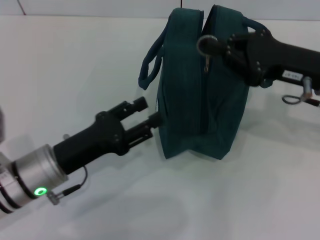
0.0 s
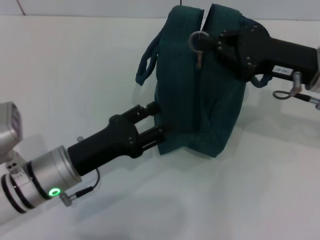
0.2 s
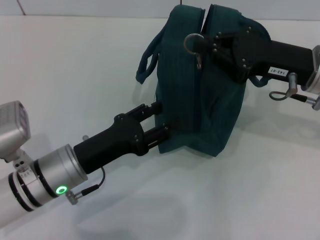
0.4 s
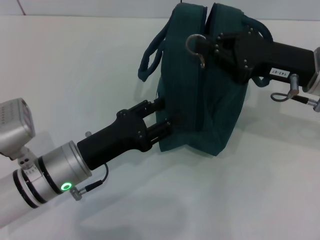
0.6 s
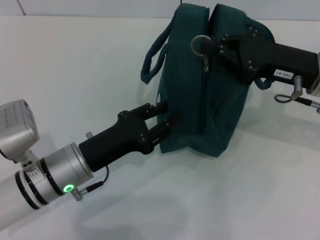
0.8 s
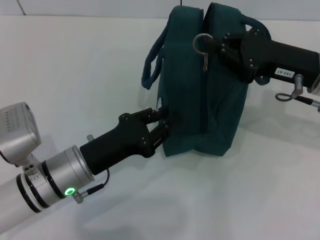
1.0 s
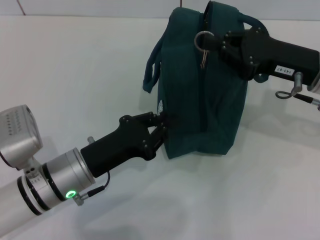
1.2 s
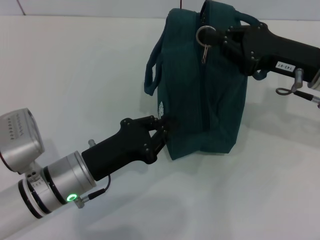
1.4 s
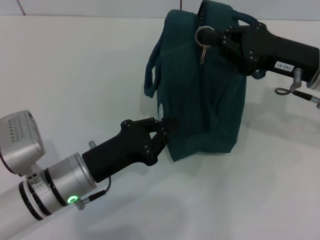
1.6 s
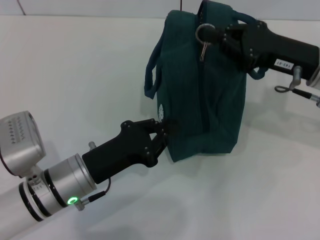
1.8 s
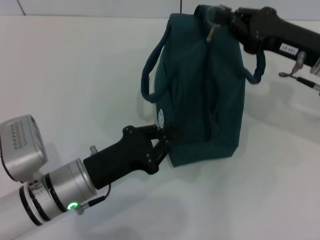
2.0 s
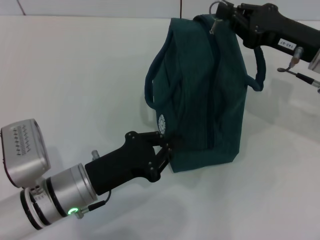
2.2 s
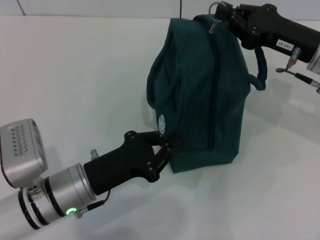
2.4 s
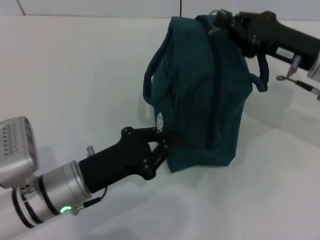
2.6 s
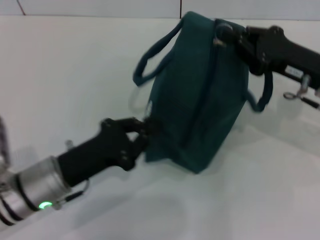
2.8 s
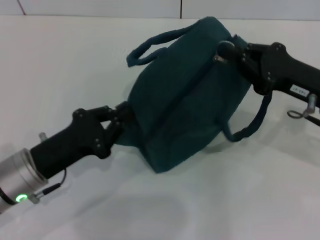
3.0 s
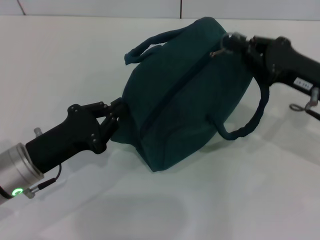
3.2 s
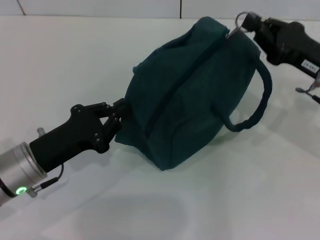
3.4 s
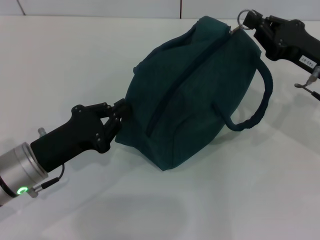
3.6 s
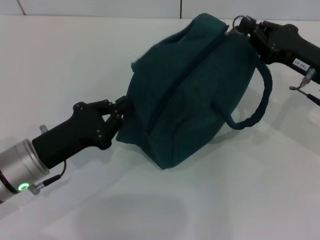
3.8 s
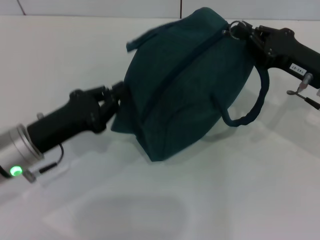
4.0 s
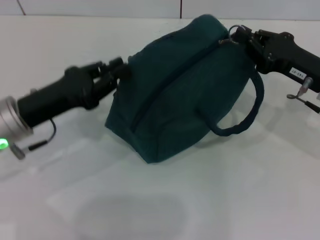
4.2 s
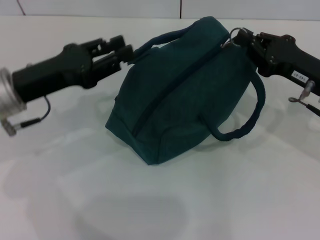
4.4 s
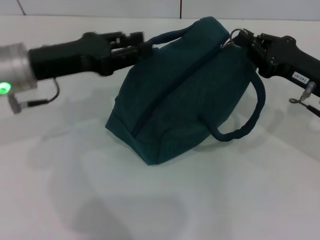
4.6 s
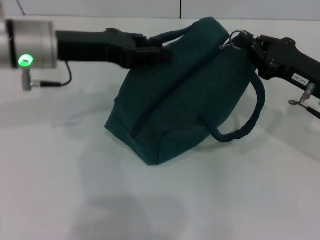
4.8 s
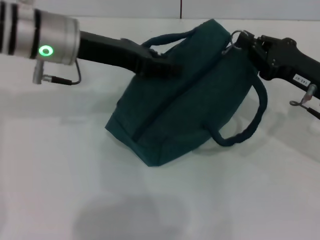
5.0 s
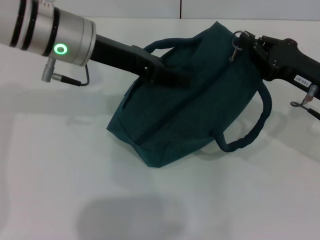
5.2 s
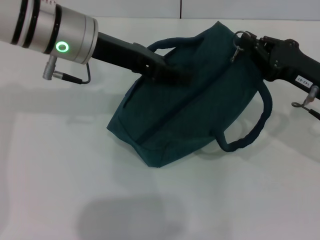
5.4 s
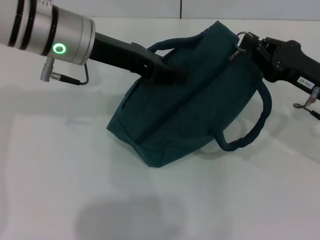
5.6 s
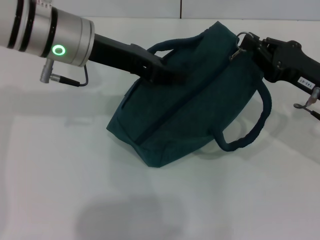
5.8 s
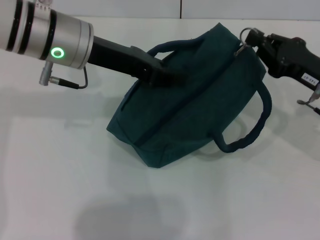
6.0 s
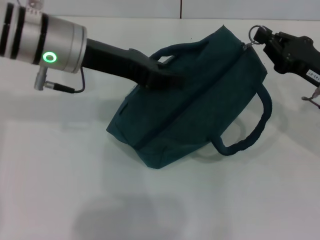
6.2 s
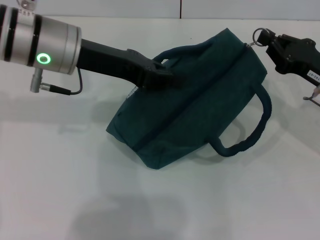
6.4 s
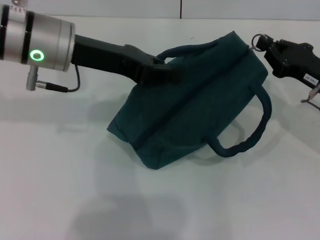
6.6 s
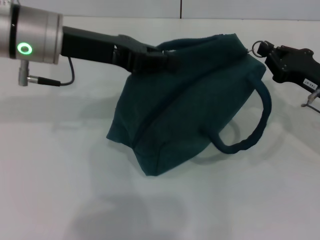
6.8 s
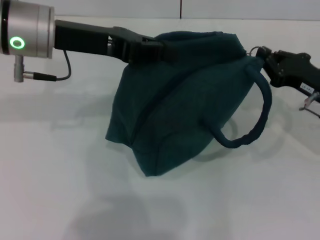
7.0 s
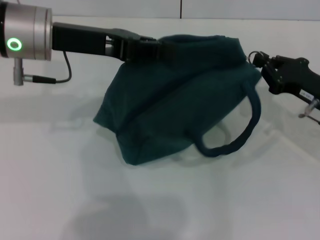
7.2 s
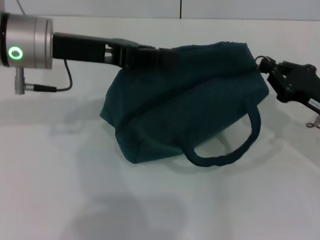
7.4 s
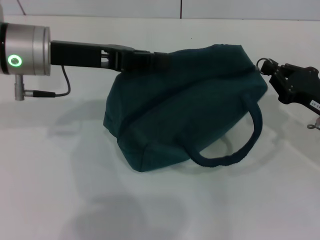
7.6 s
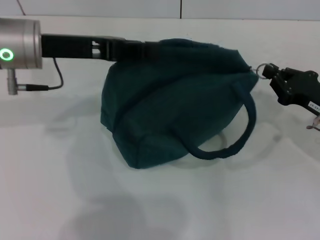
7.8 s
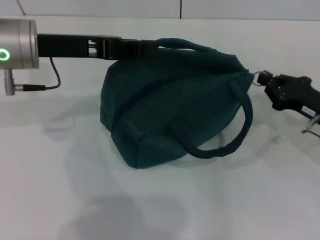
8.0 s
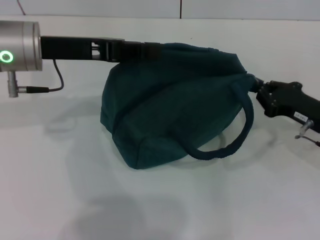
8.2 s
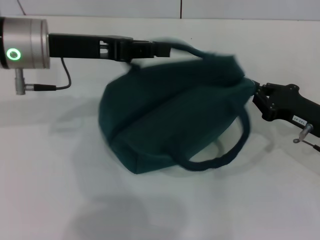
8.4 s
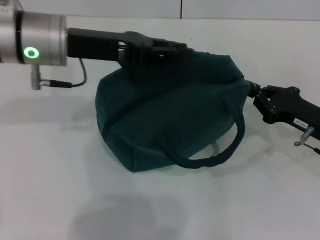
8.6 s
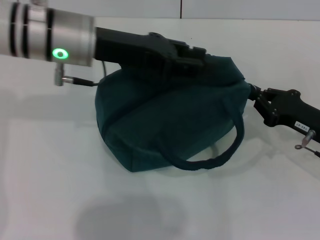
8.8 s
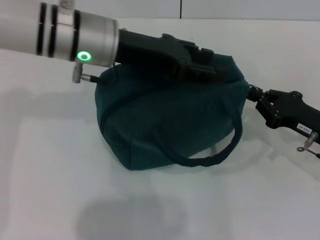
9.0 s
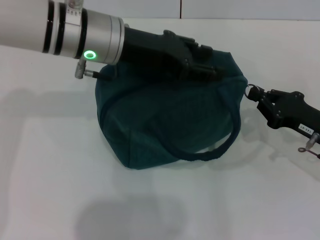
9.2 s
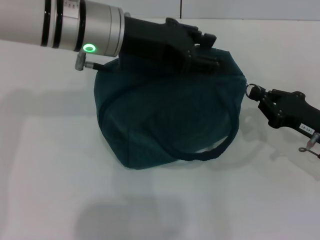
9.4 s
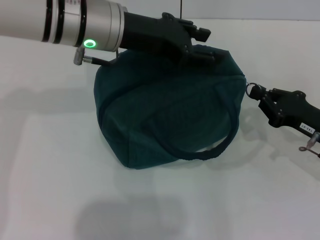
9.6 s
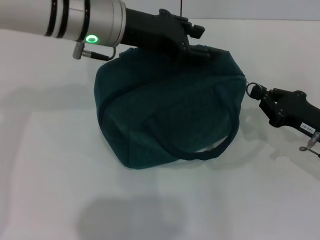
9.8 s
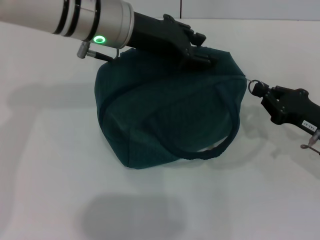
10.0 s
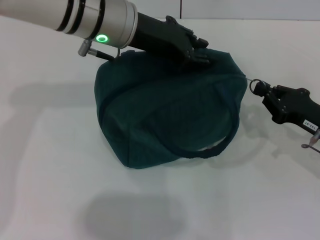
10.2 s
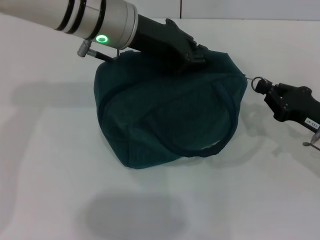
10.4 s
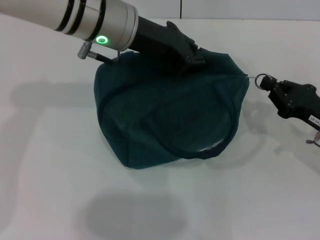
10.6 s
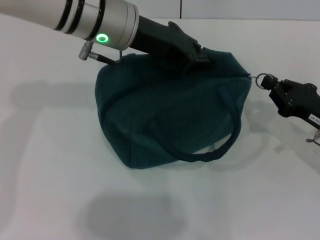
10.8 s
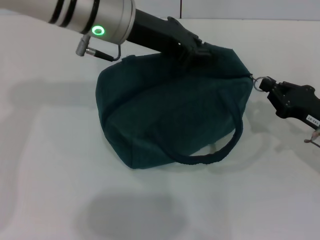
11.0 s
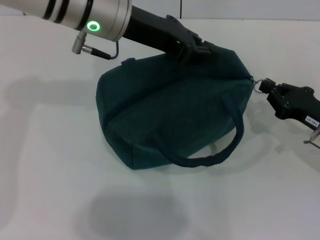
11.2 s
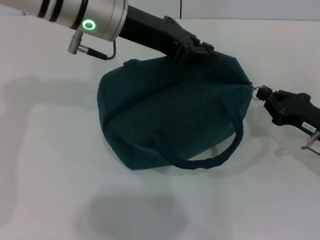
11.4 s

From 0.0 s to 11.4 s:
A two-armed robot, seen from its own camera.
From 0.0 s to 1.4 s: The left gripper closes.
From 1.4 s to 2.8 s: The grippers make only small movements.
From 2.8 s to 4.2 s: The left gripper shifts about 10 cm upward and forward.
From 4.2 s to 5.6 s: The left gripper travels upward, to the right and forward by approximately 15 cm.
From 5.6 s to 7.2 s: There are only small adjustments of the grippers.
From 8.6 s to 10.0 s: The left gripper goes about 5 cm to the right, and opens up.
From 10.0 s to 11.4 s: The left gripper closes up.

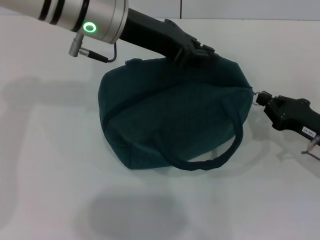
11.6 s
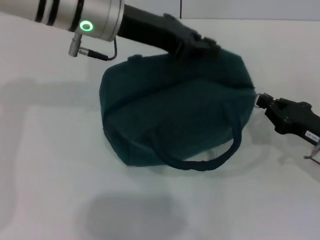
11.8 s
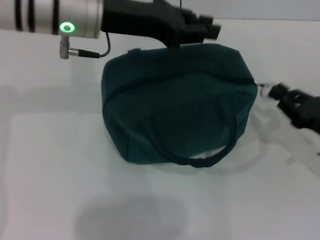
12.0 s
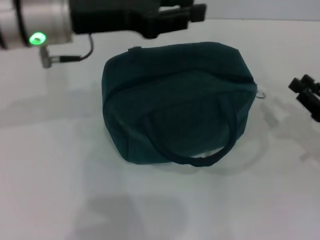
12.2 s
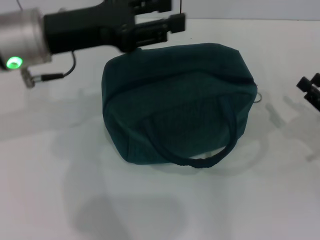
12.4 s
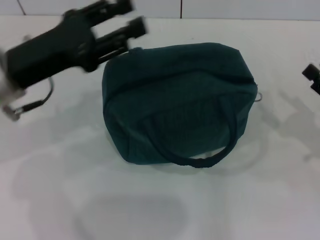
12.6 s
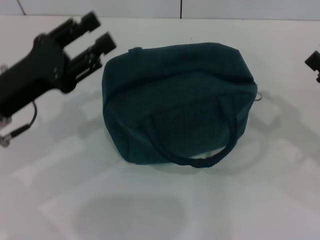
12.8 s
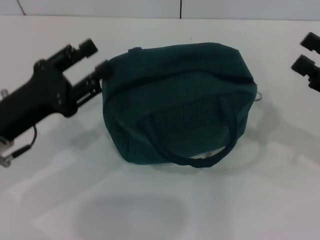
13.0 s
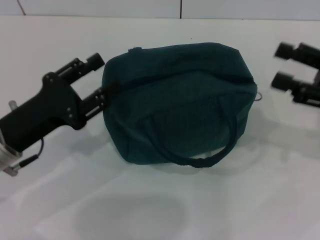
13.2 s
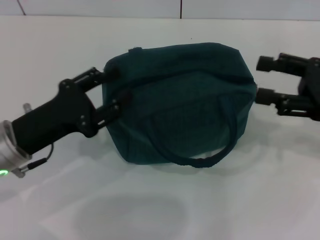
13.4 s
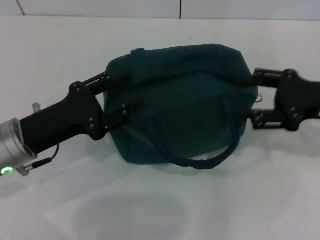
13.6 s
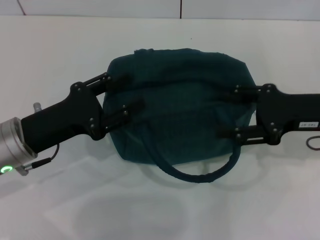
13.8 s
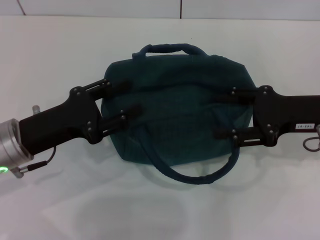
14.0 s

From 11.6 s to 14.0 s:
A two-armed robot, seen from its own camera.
Step, from 12.0 s to 12.2 s: Zip up the lunch bag with your right hand.
From 11.6 s to 12.8 s: The left gripper goes roughly 20 cm to the left, backward and downward, and opens; the right gripper shifts about 5 cm upward, and opens.
From 12.8 s to 14.0 s: The right gripper is displaced to the left and forward by some 10 cm.

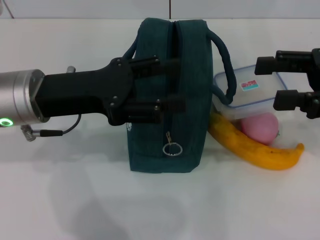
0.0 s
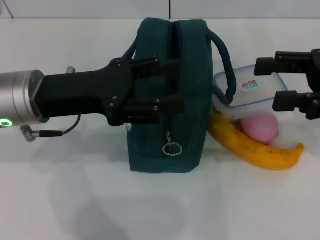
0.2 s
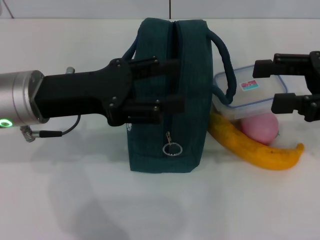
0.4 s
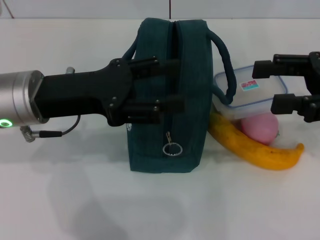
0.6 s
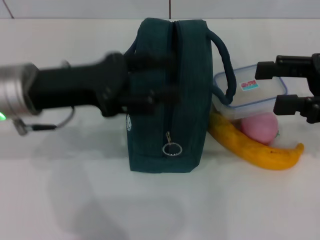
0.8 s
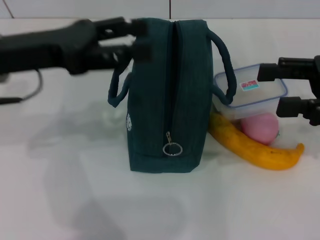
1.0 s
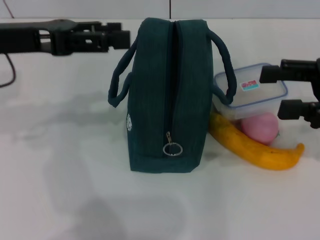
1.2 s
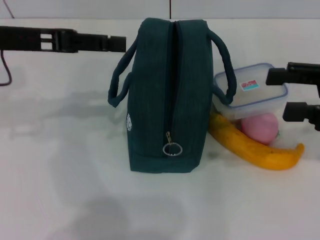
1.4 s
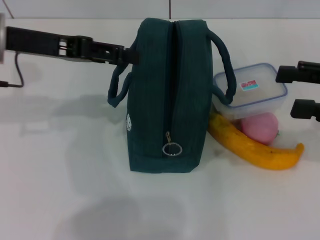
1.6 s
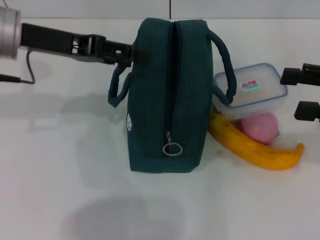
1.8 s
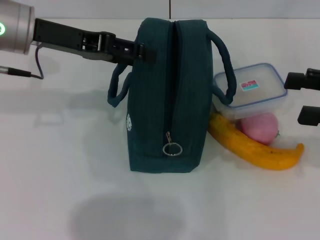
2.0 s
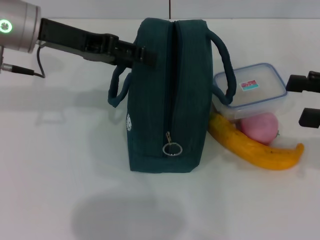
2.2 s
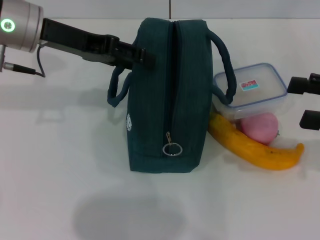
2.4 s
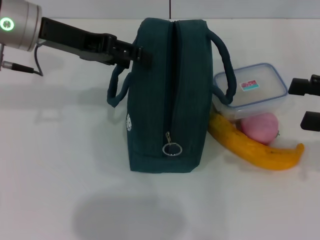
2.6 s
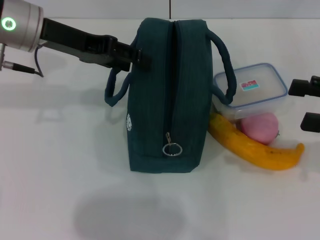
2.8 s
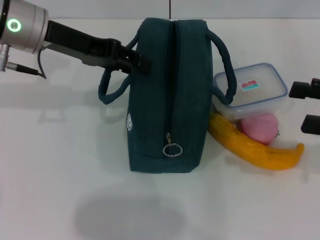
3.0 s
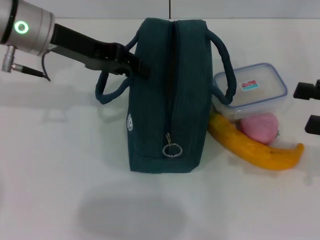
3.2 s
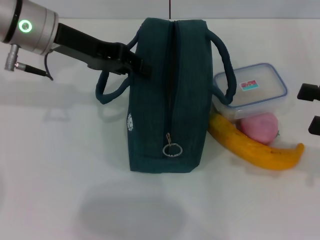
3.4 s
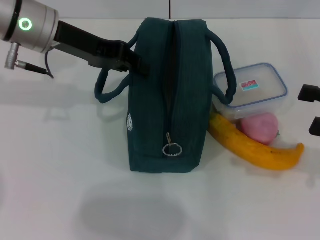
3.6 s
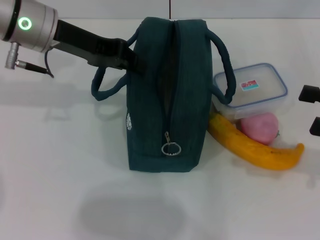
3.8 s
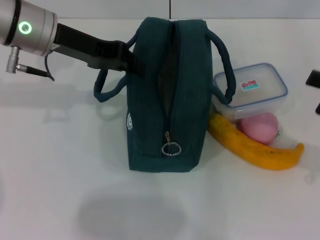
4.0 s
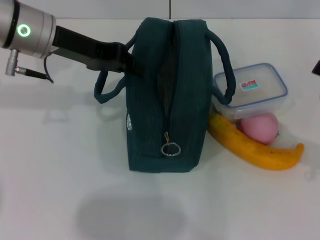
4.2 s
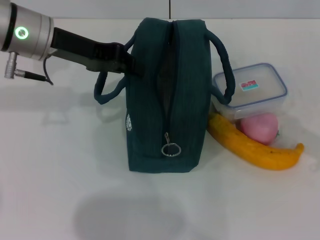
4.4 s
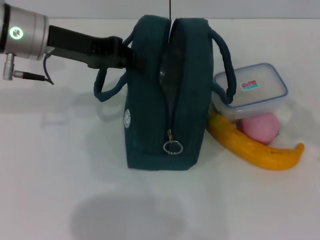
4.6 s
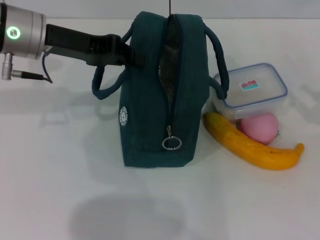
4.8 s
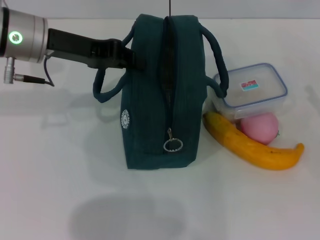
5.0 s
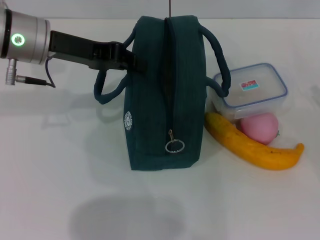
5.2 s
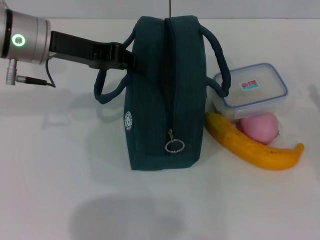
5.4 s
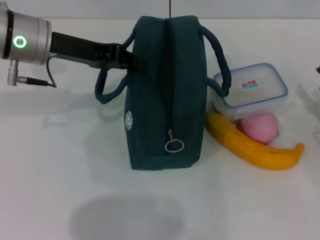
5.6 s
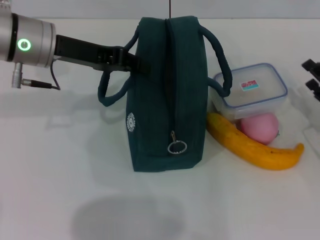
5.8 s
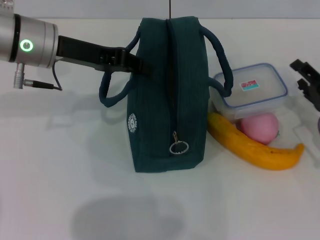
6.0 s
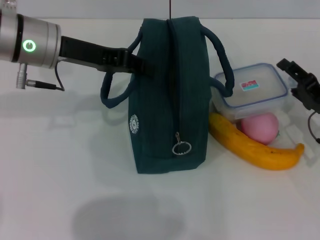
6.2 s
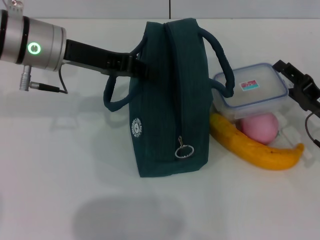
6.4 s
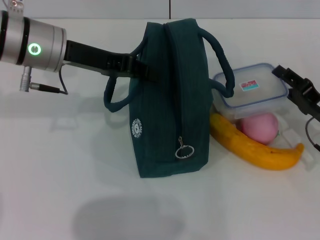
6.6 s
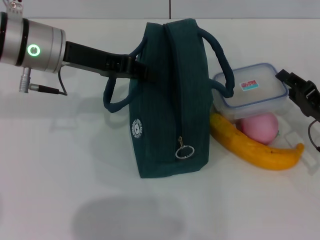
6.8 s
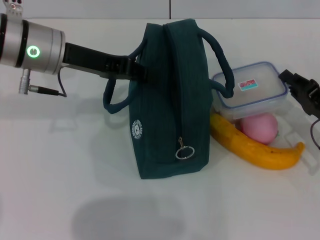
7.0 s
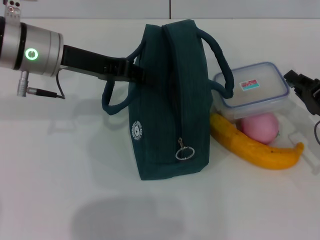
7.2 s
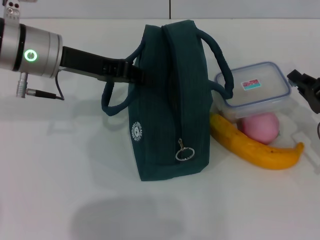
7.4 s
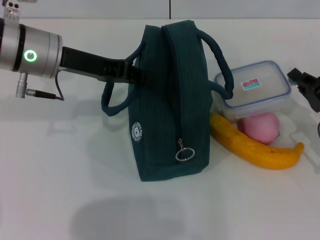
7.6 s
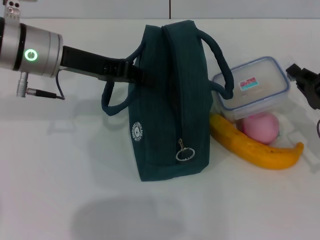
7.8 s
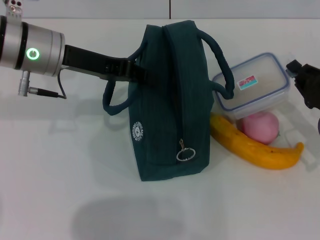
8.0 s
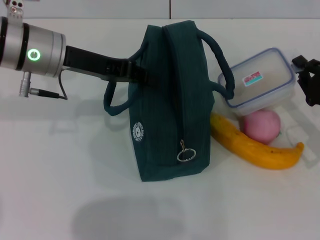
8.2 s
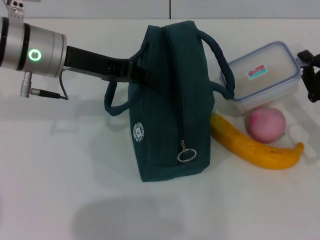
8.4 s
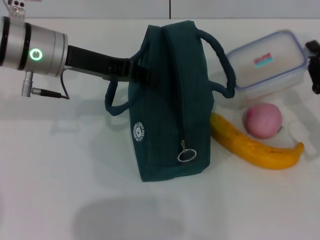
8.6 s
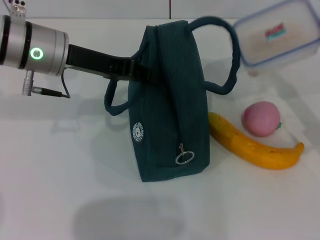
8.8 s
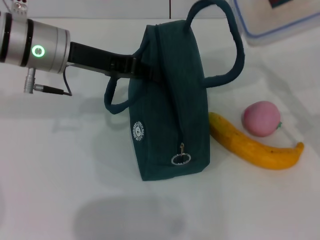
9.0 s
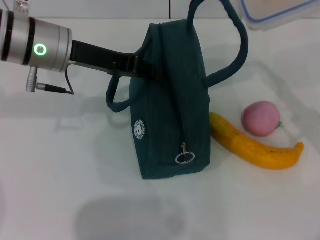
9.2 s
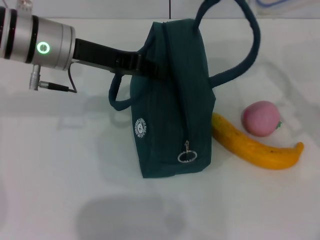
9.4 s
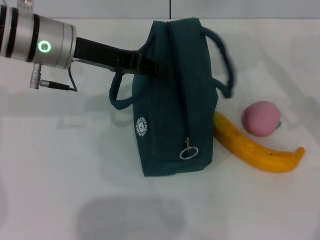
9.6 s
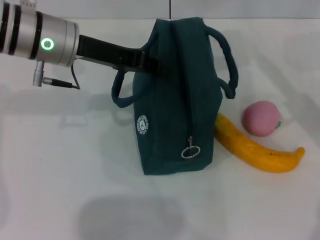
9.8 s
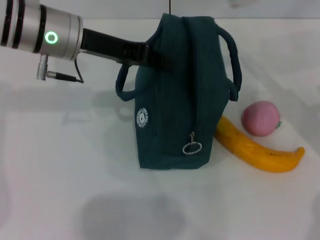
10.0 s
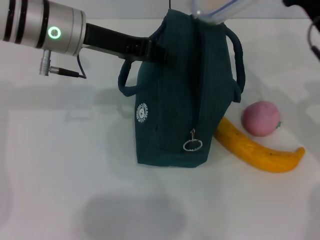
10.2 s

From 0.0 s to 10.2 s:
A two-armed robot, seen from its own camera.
Step, from 0.0 s to 3.8 s: Hold the lunch bag with your left hand.
Step, from 4.0 s to 7.6 s: Pick up the lunch box with your right hand.
From 0.0 s to 1.4 s: The left gripper goes approximately 10 cm to the left and upward.
From 1.4 s to 3.0 s: The left gripper moves to the right, about 5 cm.
From 3.0 s to 4.4 s: The left gripper closes its fingers.
From 4.4 s to 5.8 s: The right gripper heads downward, covering approximately 10 cm.
From 5.8 s to 7.2 s: The right gripper closes up.
From 8.8 s to 10.2 s: The right gripper heads to the left, upward and forward, covering approximately 10 cm.
